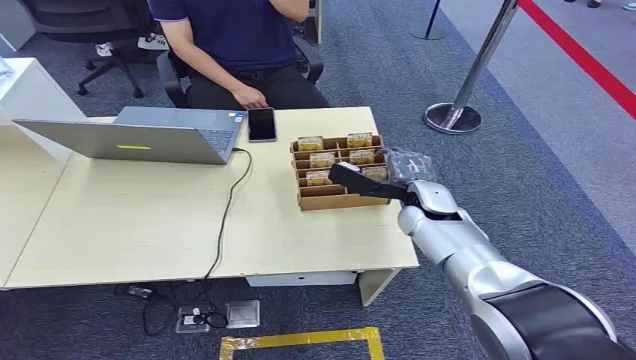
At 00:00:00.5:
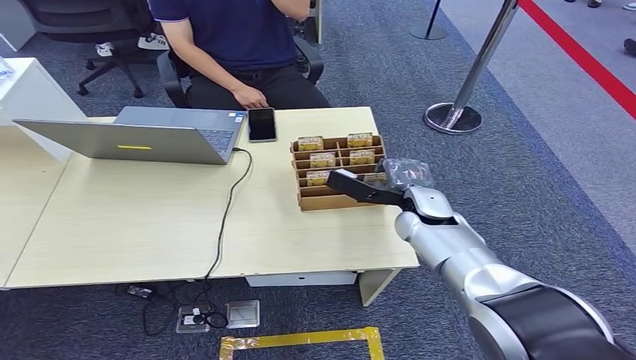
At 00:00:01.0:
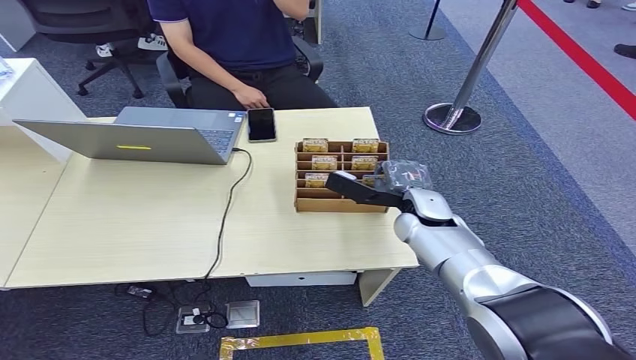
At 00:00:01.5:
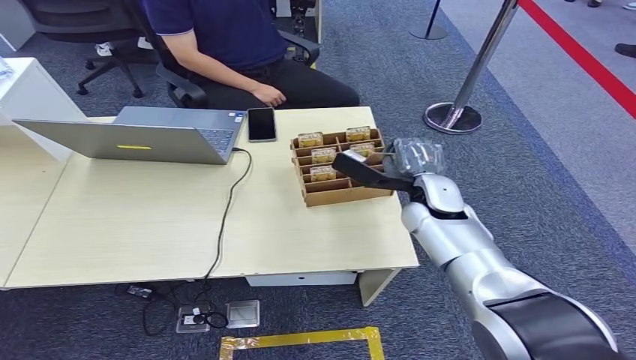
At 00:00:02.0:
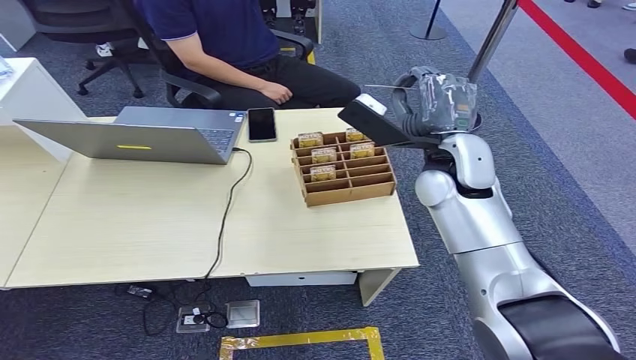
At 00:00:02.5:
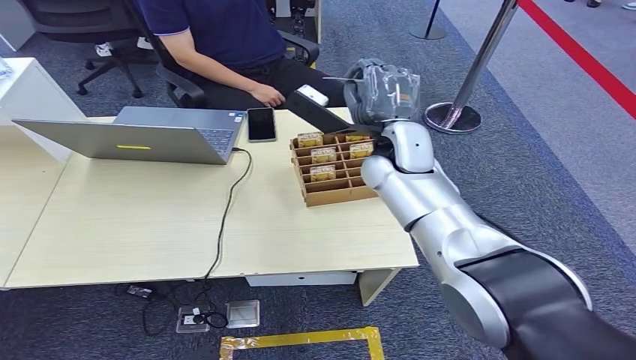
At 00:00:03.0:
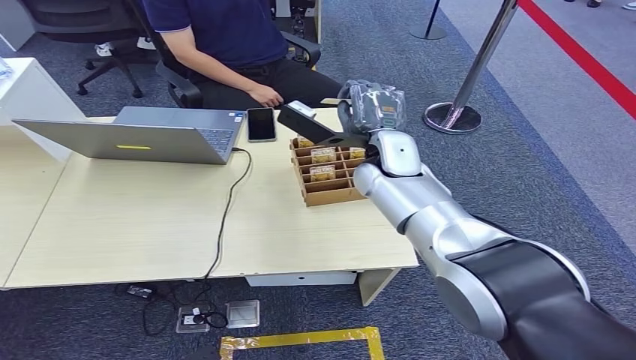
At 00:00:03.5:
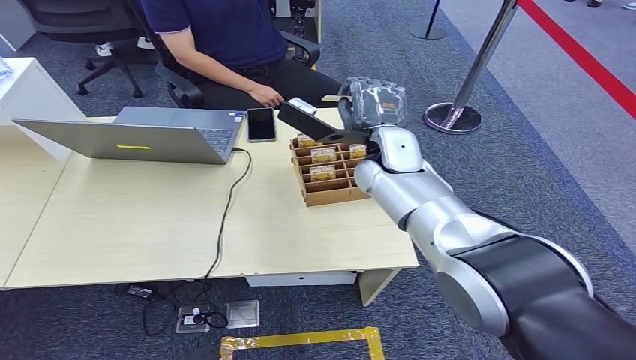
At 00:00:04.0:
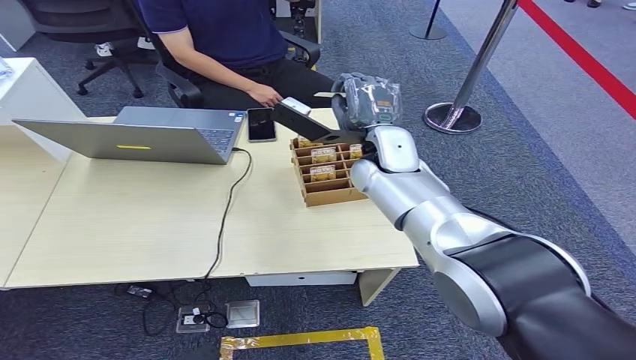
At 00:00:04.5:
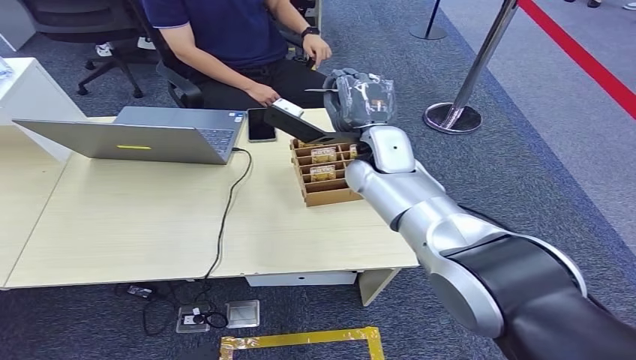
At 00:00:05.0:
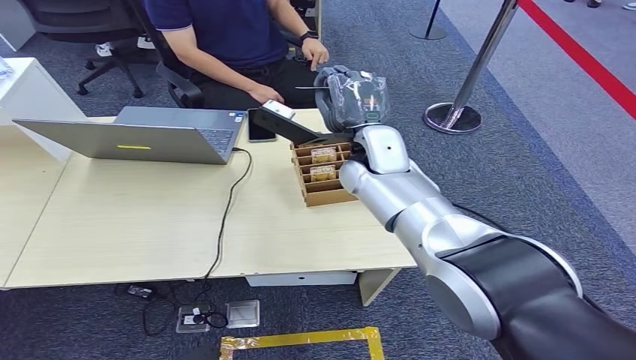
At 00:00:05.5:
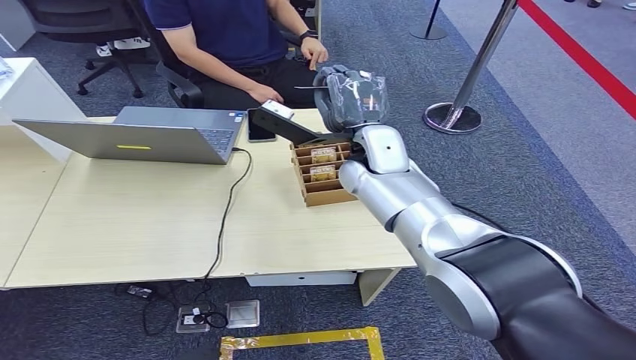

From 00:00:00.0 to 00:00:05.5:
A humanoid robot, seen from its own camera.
Step, from 00:00:00.0 to 00:00:03.0: Pick up the room card from the card holder.
Step, from 00:00:03.5 to 00:00:05.5: Hand the room card to the target.
From 00:00:02.0 to 00:00:03.5: The right hand heads to the left, covering some 10 cm.
From 00:00:03.5 to 00:00:05.5: The hands make only small movements.
